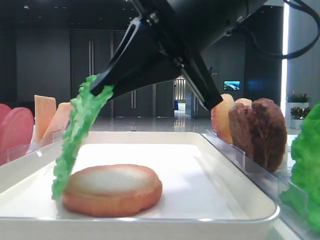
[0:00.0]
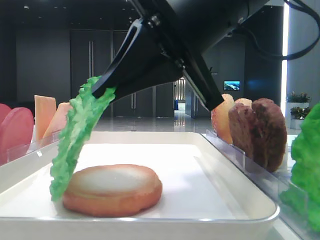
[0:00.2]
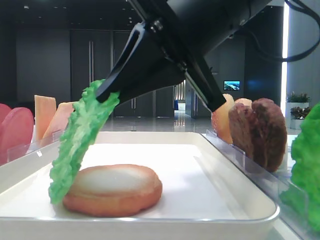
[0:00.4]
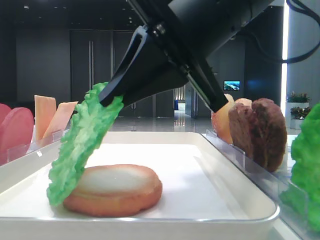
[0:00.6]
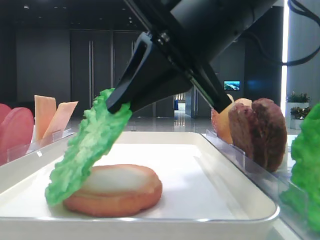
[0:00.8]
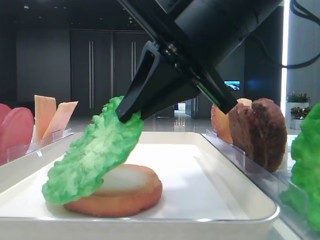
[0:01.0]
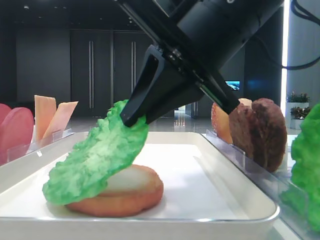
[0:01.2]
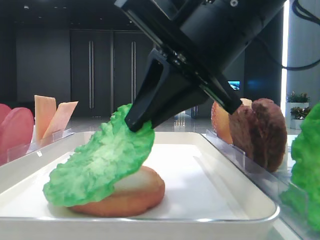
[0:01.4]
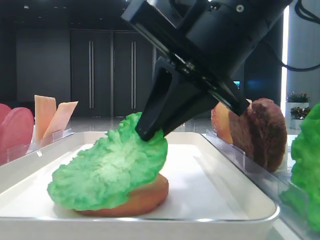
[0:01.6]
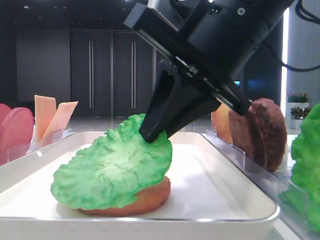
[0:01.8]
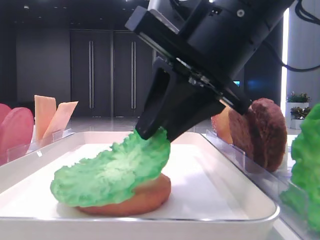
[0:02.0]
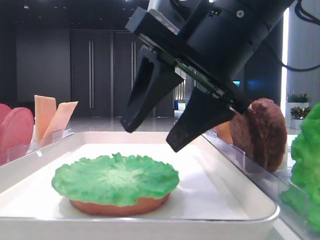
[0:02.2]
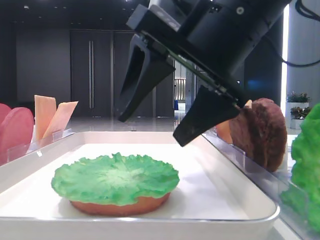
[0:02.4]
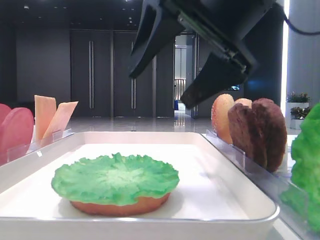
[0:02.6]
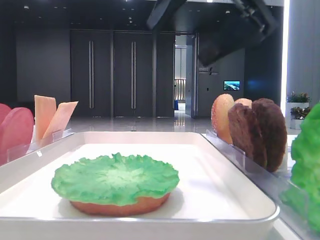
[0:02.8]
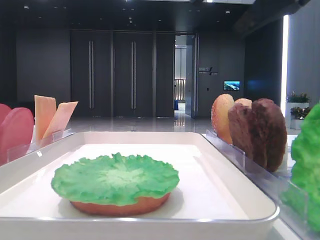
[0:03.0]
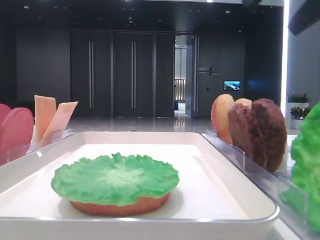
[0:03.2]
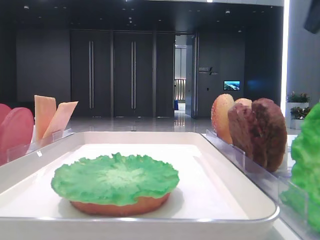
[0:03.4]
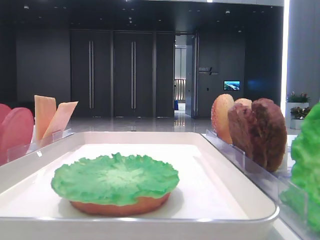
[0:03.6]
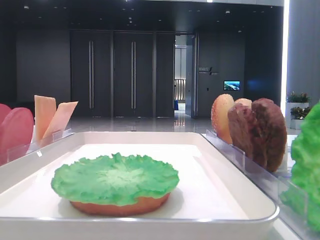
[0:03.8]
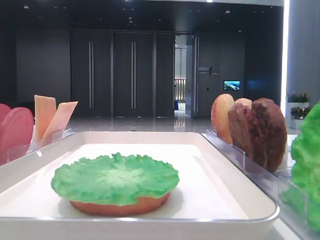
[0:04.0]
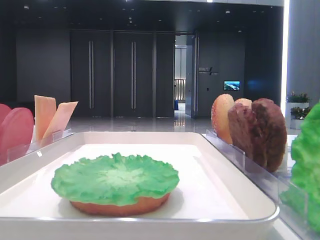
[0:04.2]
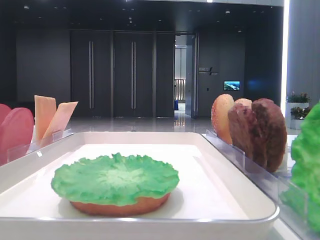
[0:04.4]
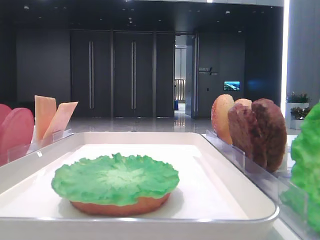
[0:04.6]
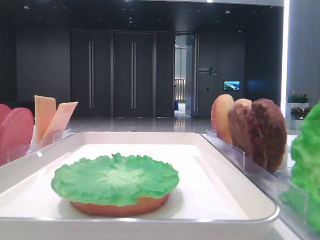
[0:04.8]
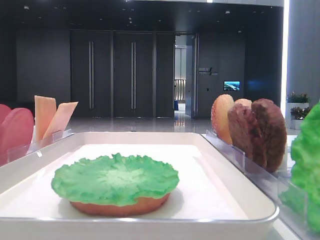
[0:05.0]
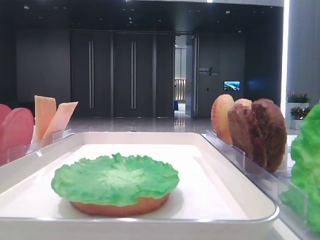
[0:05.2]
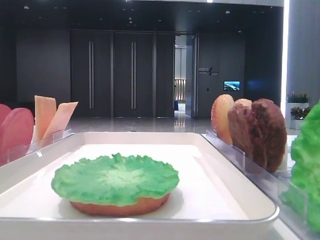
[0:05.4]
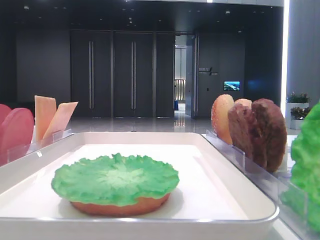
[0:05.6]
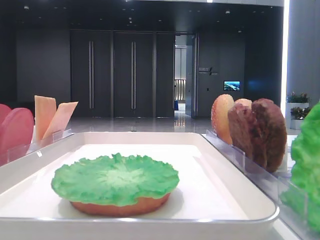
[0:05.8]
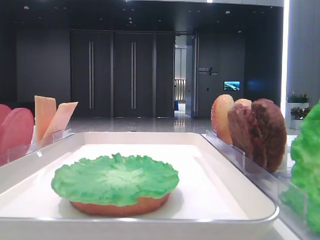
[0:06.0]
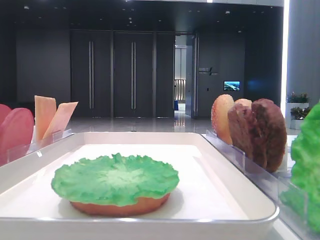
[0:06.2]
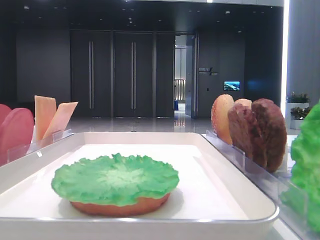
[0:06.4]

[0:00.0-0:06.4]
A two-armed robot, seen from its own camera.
Step, 0.0 to 2.2 s: Place the lettuce leaf on the bottom bread with the right hand.
1.6 to 3.2 s: The right gripper shifts roughly 20 cm to the right and upward, and opens its fingers.
3.2 to 4.8 s: The right gripper heads backward and to the right, covering approximately 20 cm.

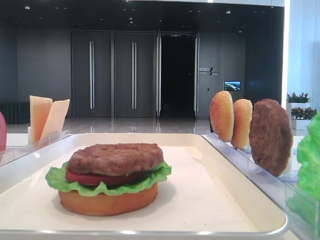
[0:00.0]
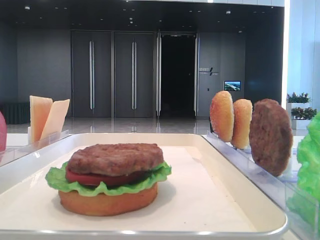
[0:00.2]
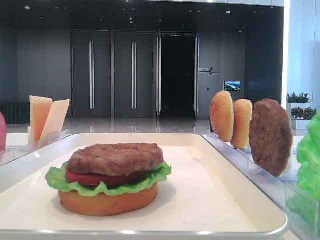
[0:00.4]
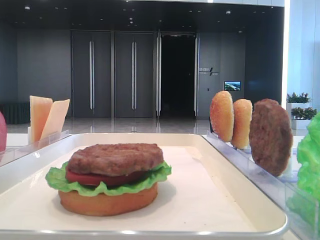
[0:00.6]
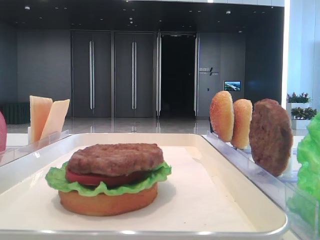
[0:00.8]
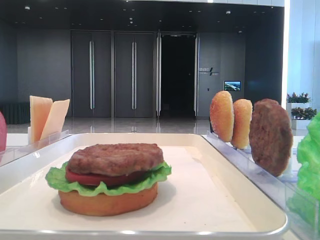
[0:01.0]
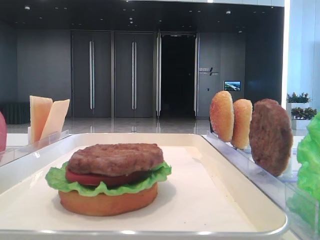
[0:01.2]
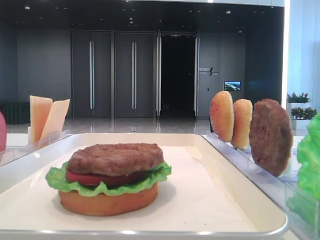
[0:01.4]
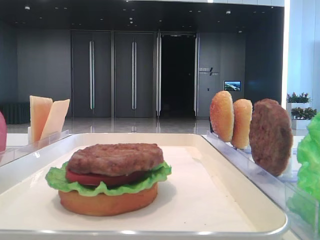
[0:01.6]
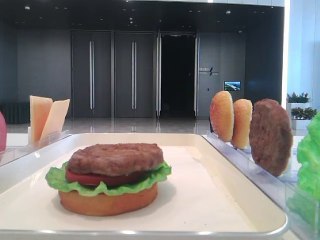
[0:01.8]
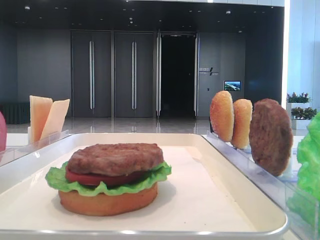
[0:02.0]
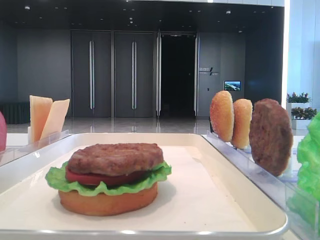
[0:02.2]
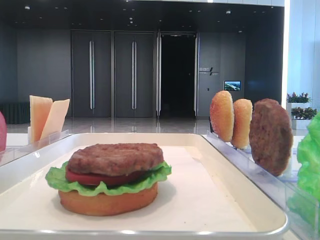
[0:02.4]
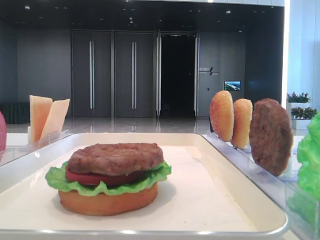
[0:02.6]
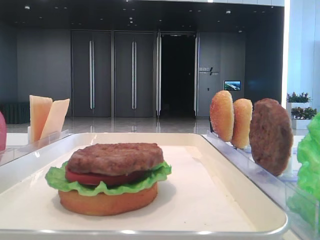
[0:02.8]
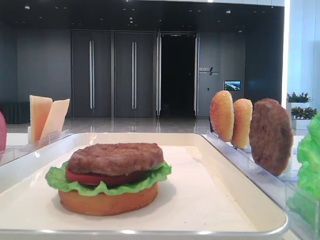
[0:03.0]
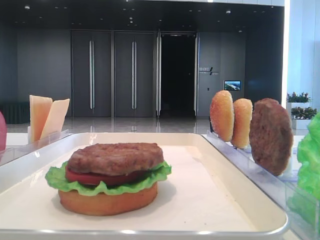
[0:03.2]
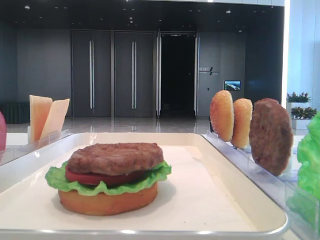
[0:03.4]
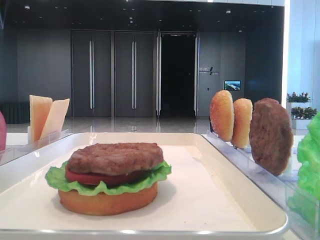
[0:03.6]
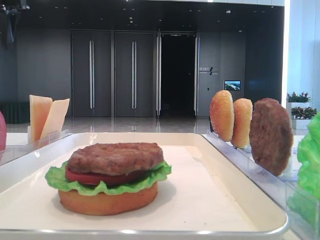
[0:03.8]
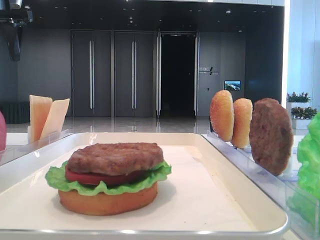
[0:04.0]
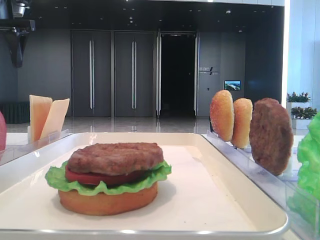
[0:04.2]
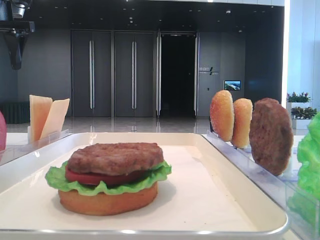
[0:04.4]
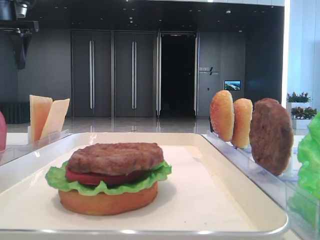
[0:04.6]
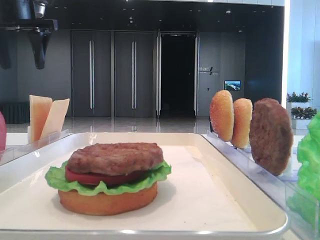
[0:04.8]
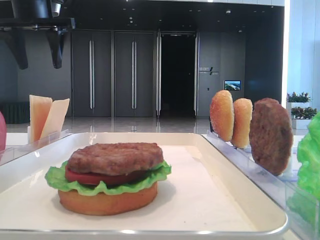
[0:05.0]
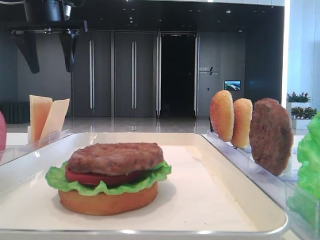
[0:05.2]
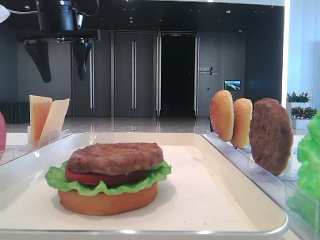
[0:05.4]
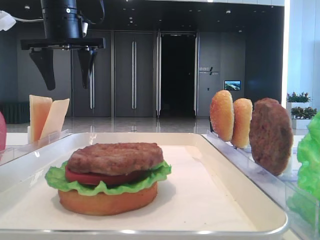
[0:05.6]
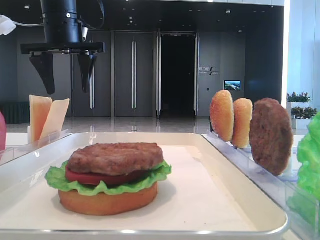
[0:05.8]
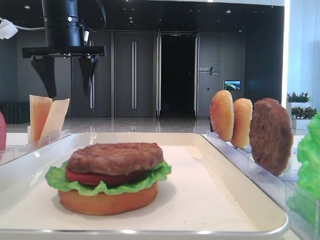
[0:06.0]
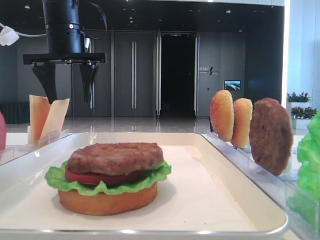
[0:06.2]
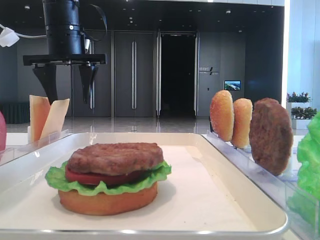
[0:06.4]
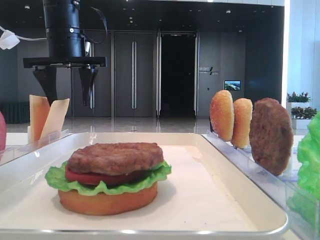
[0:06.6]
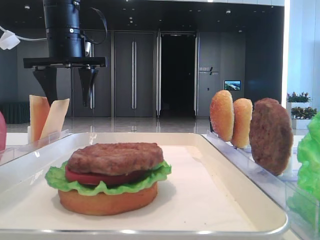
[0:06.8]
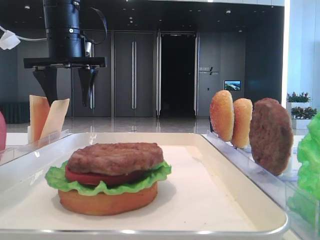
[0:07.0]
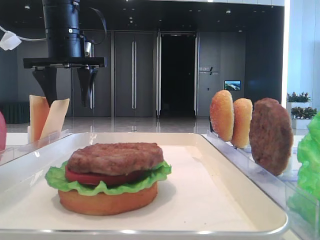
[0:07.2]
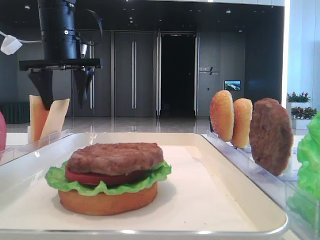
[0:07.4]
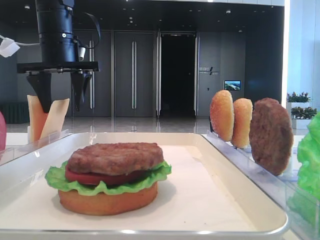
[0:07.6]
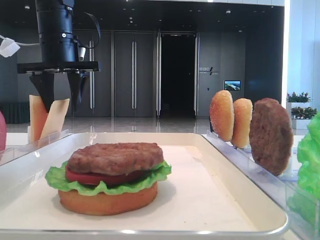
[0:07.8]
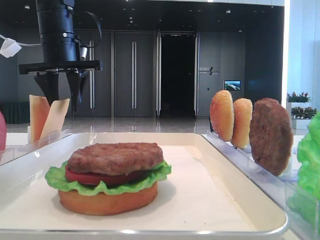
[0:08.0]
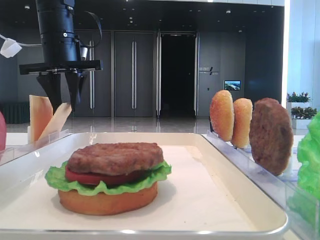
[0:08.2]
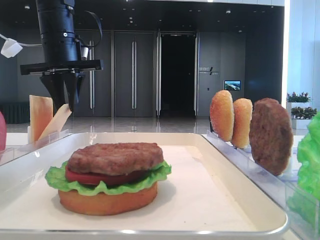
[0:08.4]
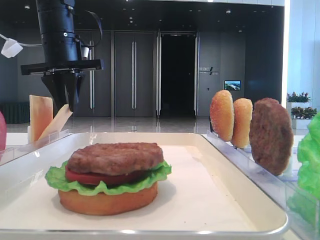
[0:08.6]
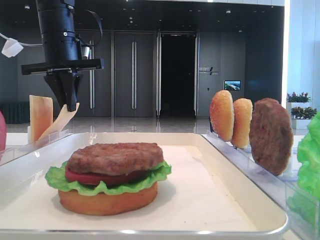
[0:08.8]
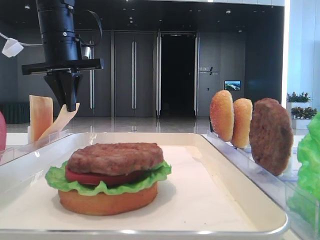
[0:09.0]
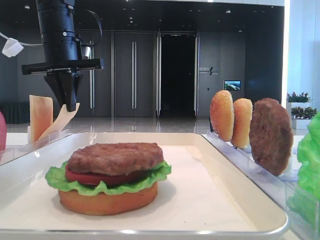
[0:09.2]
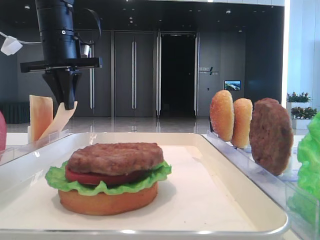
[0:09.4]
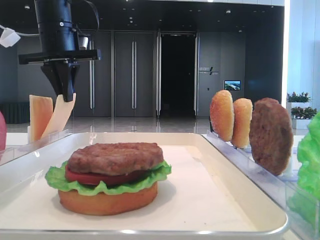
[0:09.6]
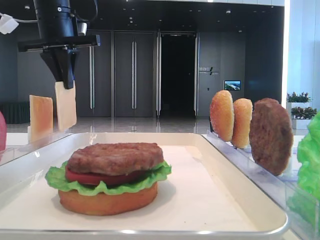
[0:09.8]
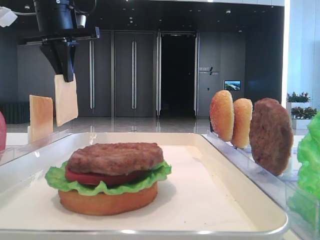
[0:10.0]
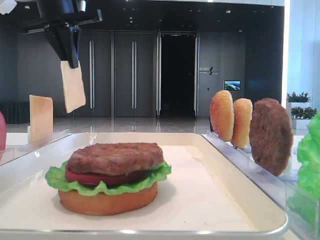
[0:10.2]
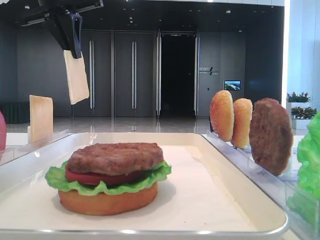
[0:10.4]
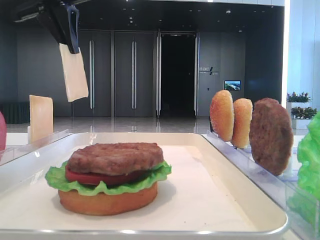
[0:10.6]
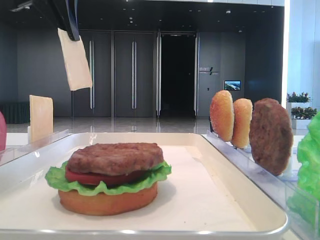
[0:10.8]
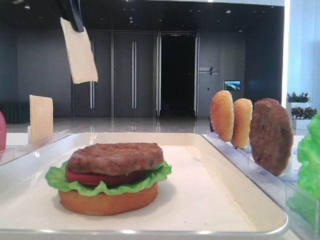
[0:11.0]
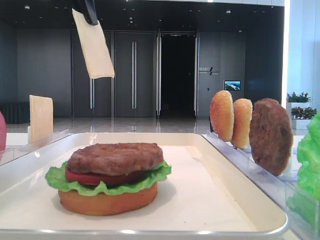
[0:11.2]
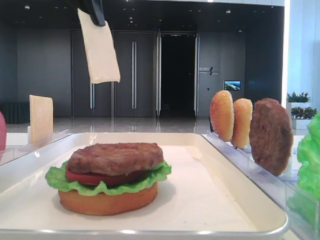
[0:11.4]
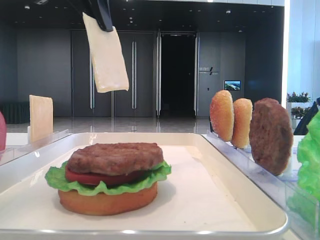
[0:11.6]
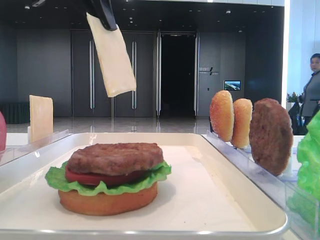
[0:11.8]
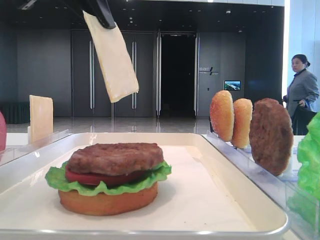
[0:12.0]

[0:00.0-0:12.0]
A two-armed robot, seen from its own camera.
Step, 0.0 to 8.6 s: Pick up the cheese slice with the left hand.
3.0 to 4.4 s: The left gripper is displaced forward and downward by about 20 cm.
4.4 to 6.0 s: The left gripper shifts roughly 15 cm to the right.
6.0 to 7.6 s: There are only small adjustments of the grippers.
7.6 to 9.0 s: The left gripper closes its fingers.
9.0 to 10.4 s: The left gripper shifts about 10 cm upward.
10.4 to 12.0 s: The left gripper travels backward by approximately 15 cm.

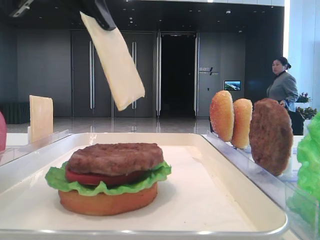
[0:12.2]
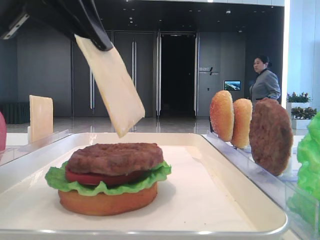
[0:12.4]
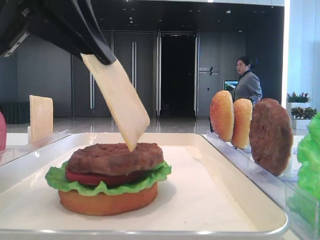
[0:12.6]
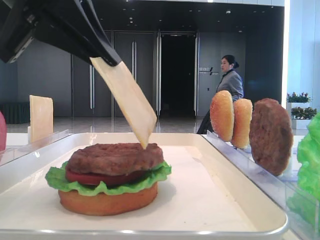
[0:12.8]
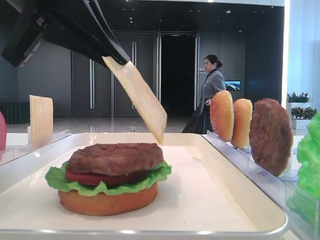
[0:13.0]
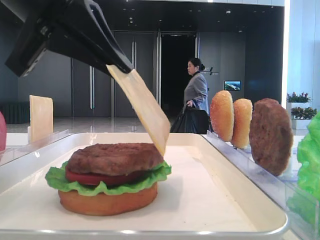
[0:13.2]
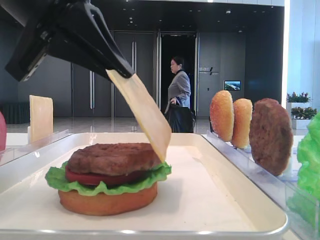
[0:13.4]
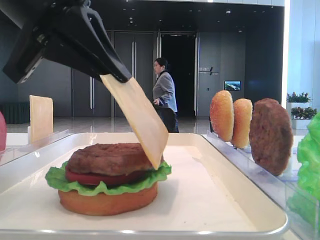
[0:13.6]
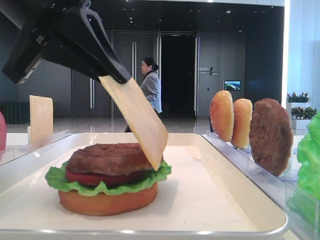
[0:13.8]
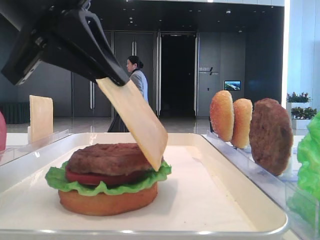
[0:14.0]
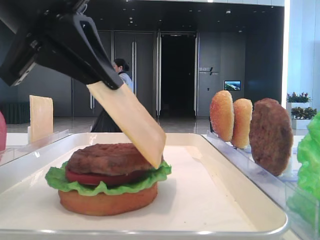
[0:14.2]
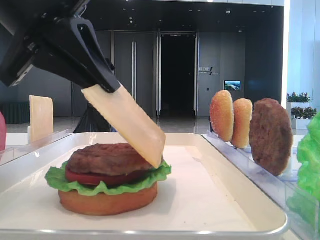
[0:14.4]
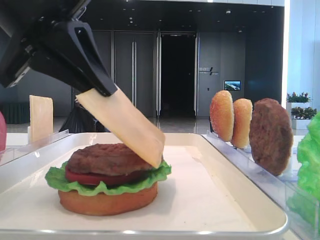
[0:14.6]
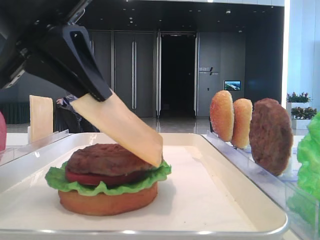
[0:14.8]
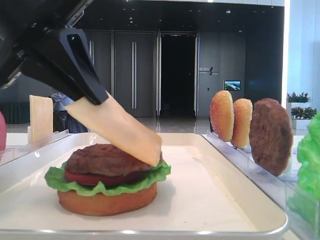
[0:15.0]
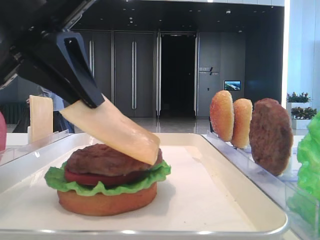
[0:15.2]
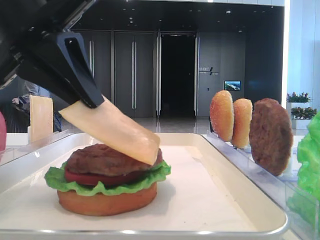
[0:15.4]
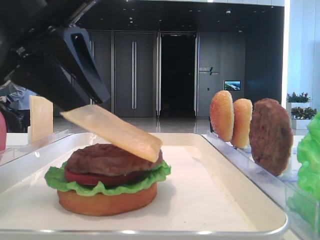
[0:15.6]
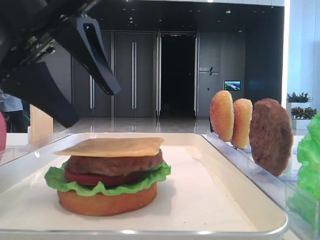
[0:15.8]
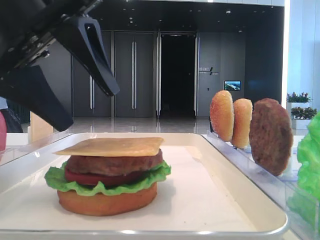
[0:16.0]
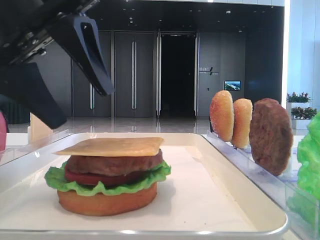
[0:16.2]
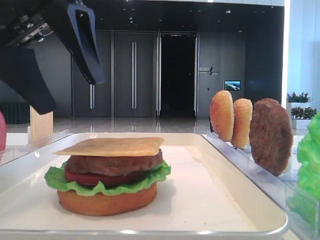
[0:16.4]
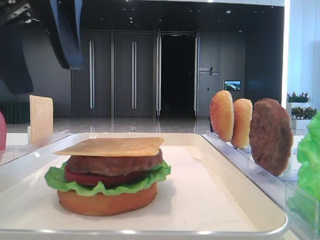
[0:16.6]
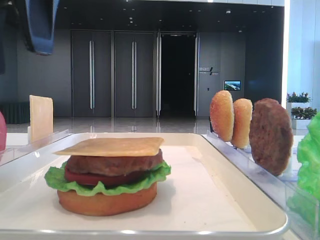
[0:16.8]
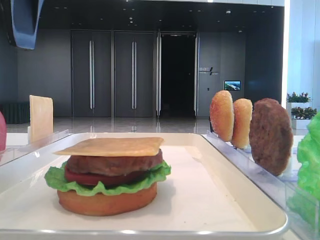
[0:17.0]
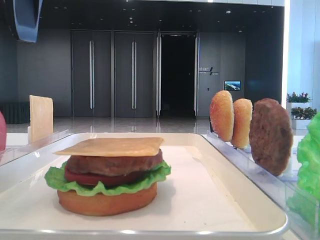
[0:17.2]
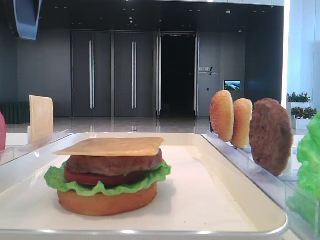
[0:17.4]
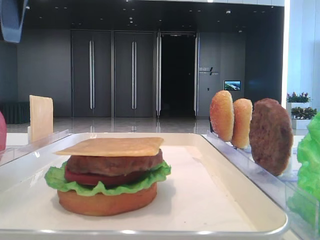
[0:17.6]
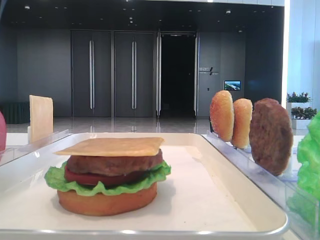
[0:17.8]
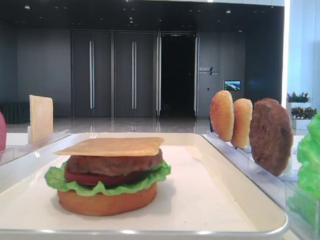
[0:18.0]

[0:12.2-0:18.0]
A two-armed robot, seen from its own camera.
Step, 12.2 to 15.6 s: Place the cheese slice on the patty with the left hand.
12.2 to 13.6 s: The left gripper heads downward, covering roughly 5 cm.
13.6 to 15.0 s: The grippers move only a little.
15.0 to 16.6 s: The left gripper opens up.
16.6 to 18.0 s: The left gripper goes roughly 15 cm to the left and upward.
